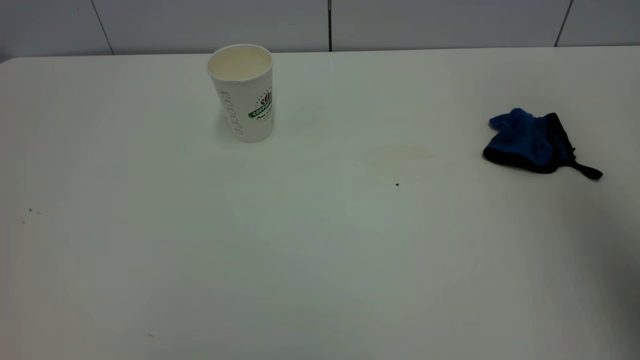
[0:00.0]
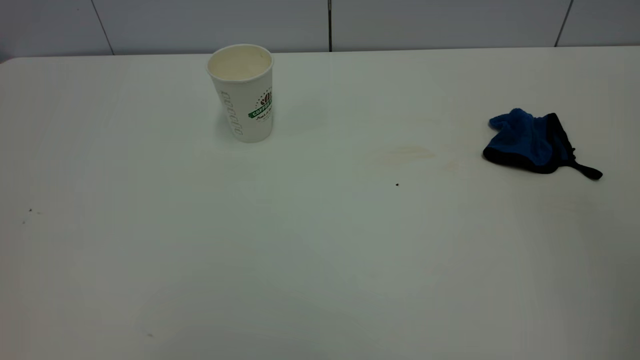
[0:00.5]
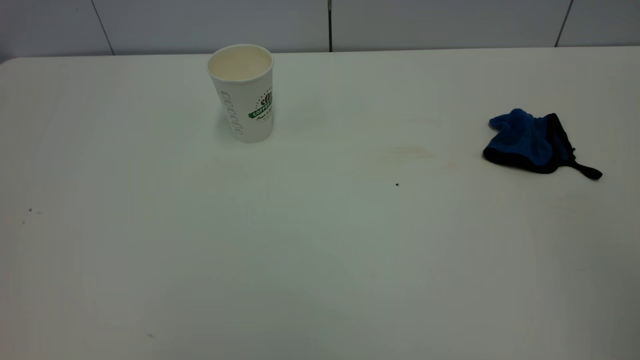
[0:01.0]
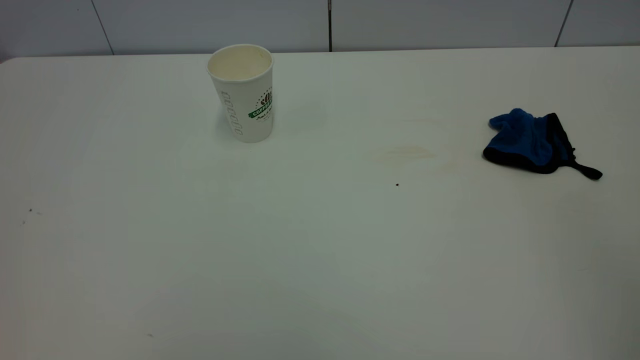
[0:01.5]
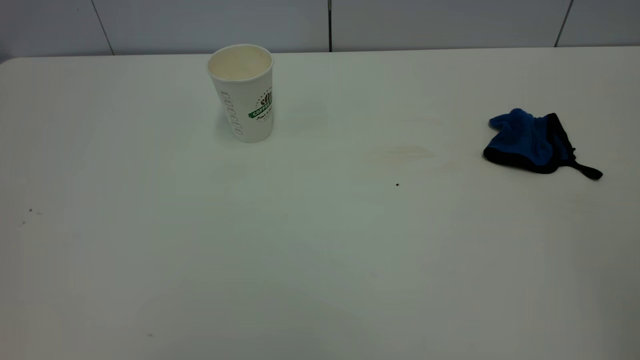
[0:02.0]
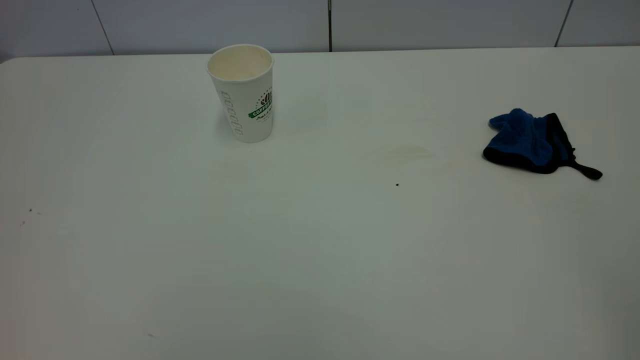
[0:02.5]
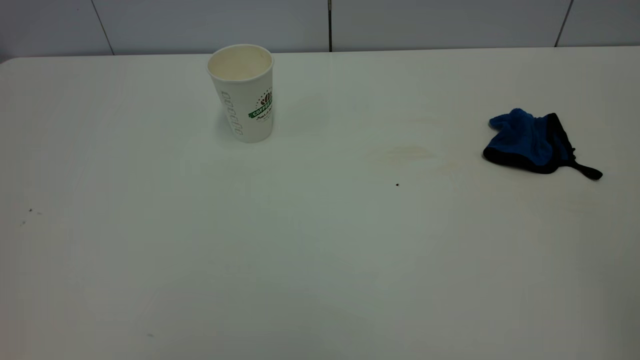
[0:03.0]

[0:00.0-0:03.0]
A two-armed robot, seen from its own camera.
Task of the whole recording: the left gripper pick up the fallen cup and place it upright, the right gripper grasp the blue rag and wipe the tea stain on the table, the right gripper put the blue rag back in its original position.
0:00.0 to 0:01.5: The right gripper heads backward and downward, covering roughly 20 cm.
